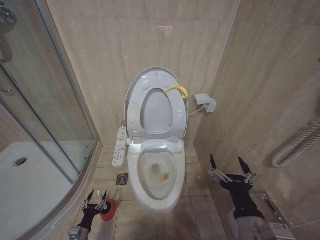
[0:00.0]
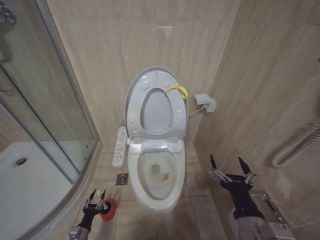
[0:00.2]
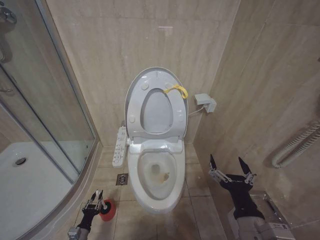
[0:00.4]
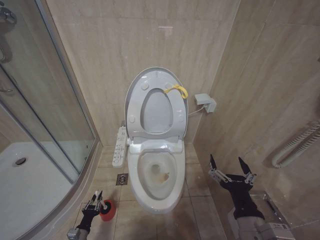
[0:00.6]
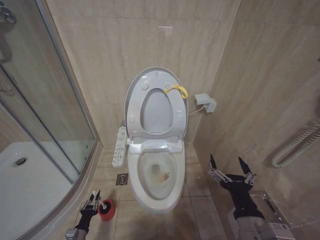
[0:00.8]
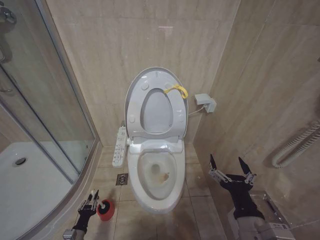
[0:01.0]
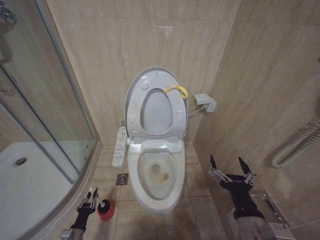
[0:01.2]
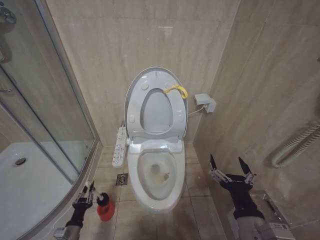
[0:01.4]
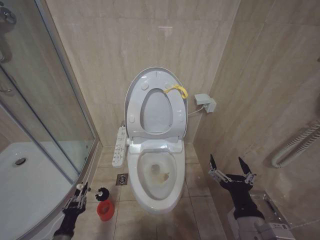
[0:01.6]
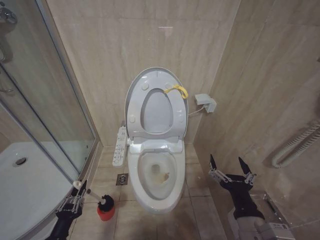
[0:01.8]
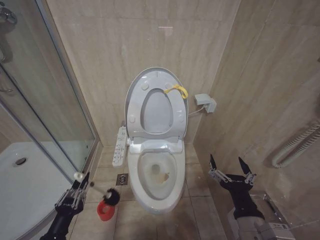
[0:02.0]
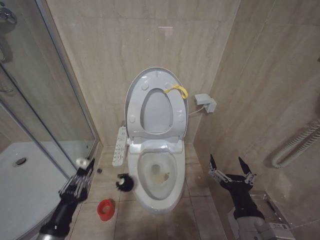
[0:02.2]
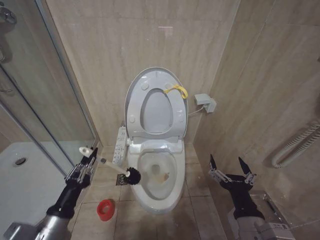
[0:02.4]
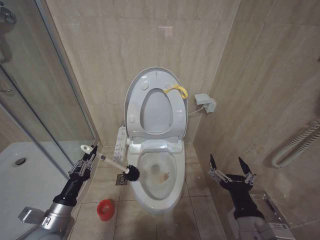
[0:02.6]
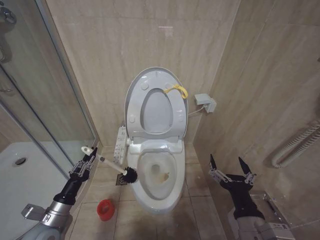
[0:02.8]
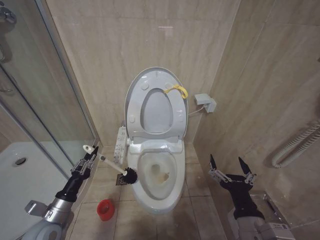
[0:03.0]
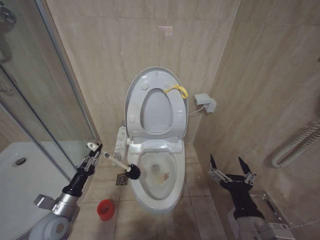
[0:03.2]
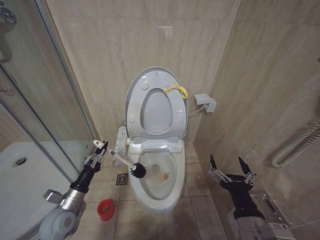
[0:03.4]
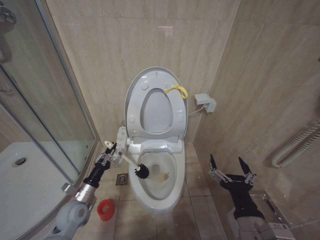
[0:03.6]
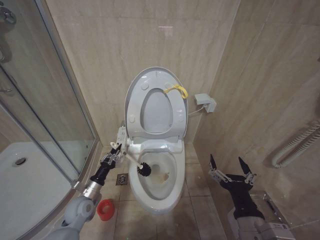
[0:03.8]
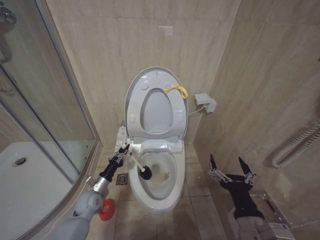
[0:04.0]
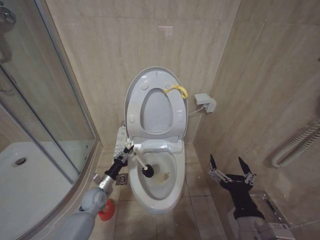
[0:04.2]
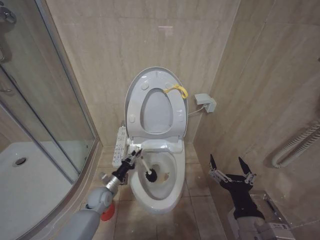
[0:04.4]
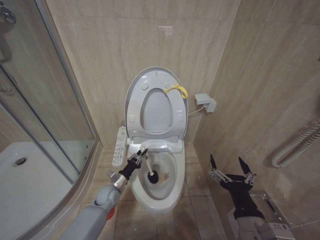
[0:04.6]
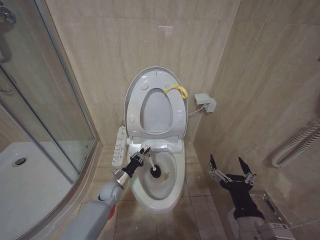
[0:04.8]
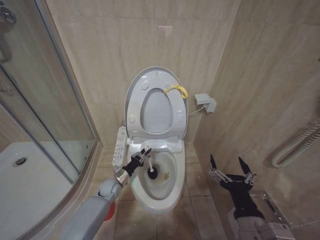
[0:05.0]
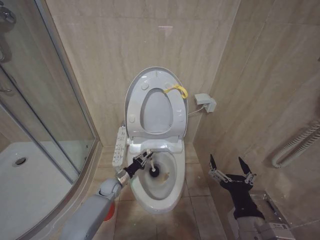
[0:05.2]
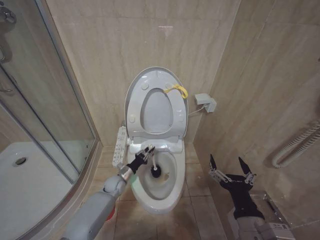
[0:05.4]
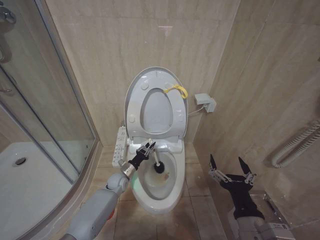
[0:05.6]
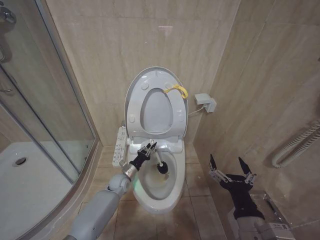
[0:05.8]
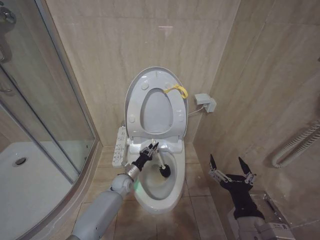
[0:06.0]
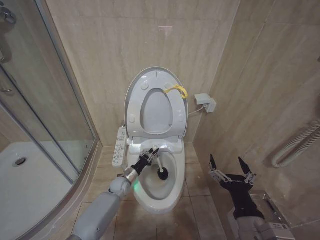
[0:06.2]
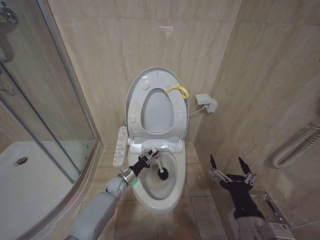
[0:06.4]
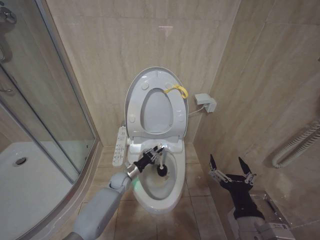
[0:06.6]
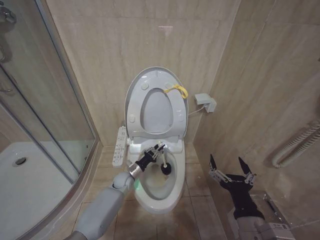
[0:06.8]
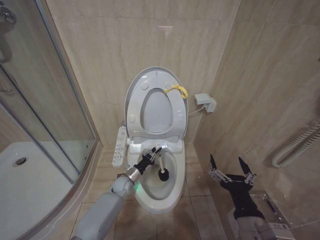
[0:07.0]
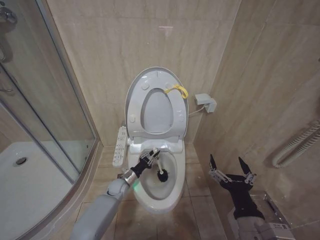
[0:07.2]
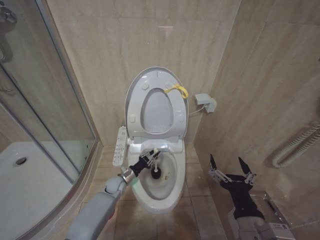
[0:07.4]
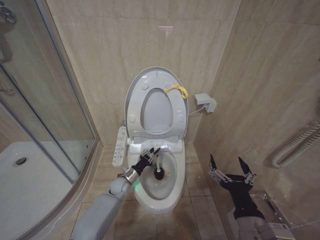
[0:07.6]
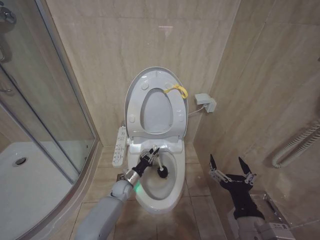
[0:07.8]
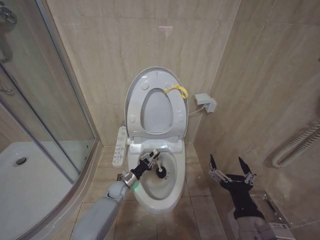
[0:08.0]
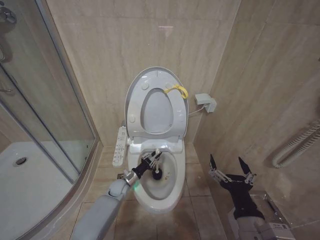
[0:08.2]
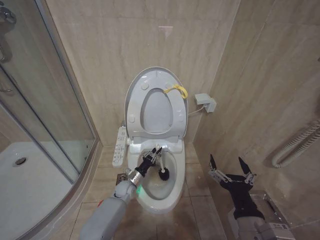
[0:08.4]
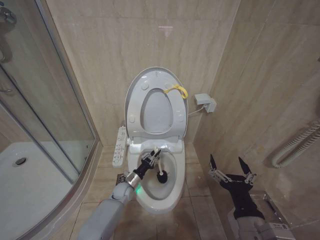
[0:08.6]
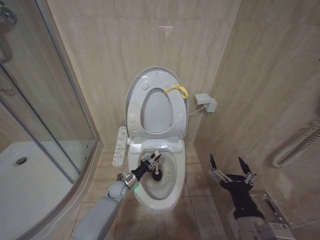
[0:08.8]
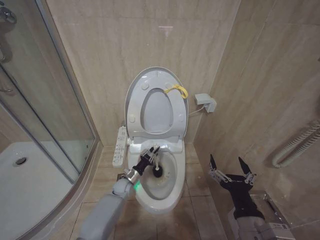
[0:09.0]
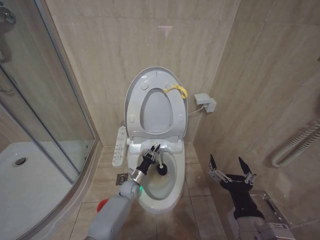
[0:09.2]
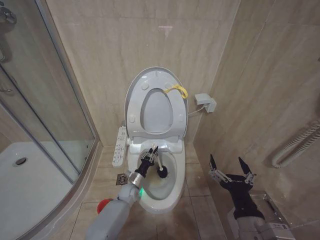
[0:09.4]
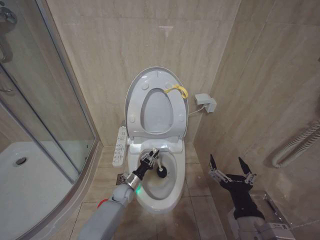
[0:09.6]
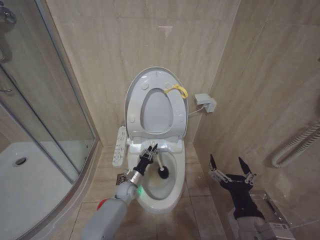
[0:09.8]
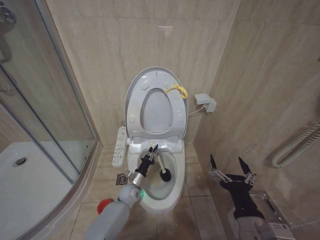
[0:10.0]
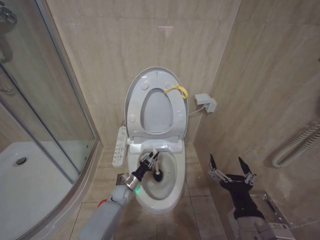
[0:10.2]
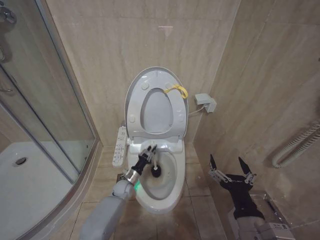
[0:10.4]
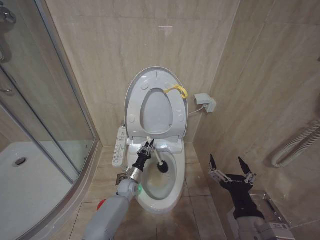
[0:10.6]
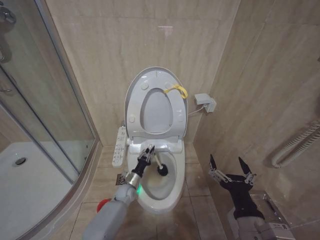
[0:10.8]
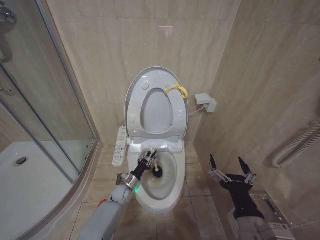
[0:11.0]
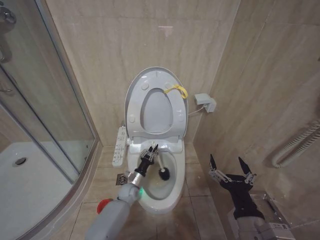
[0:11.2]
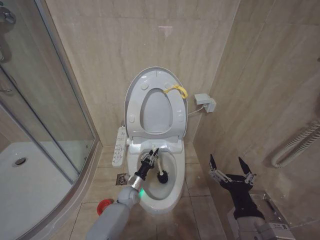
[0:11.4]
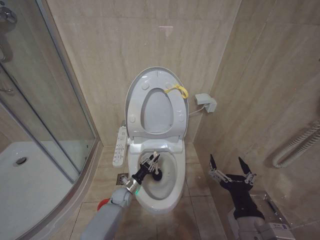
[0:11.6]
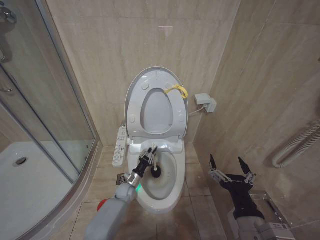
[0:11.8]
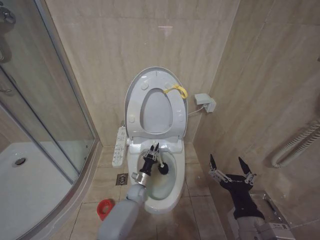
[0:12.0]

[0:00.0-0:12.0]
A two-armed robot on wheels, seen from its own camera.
Task of the whole recording: Open the toilet lid, clean the toilet bowl with a toilet brush, close the toilet lid, and flush.
0:00.0 to 0:01.6: The left gripper shifts some 10 cm upward, and closes up.
0:01.6 to 0:03.0: The left gripper shifts roughly 15 cm upward.
0:03.0 to 0:04.4: The left gripper travels forward, downward and to the right by roughly 20 cm.
0:04.4 to 0:06.0: The left gripper travels to the right and forward by roughly 10 cm.
0:06.0 to 0:07.6: The grippers make only small movements.
0:10.4 to 0:12.0: The left gripper swings left and right, roughly 5 cm each way, with 2 reversals.

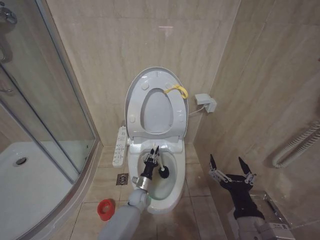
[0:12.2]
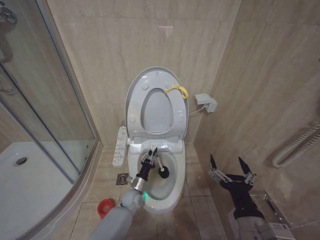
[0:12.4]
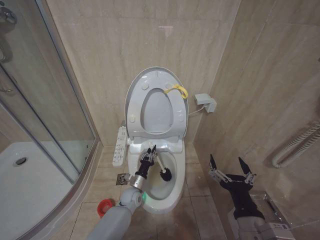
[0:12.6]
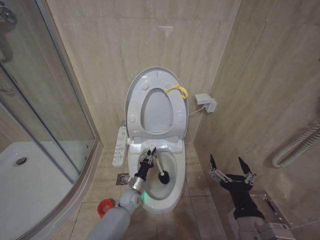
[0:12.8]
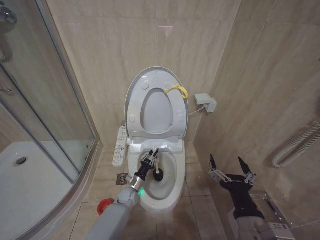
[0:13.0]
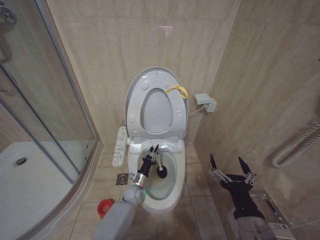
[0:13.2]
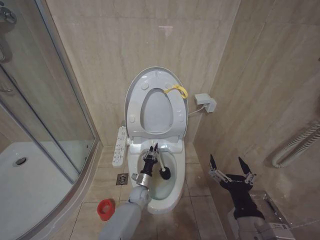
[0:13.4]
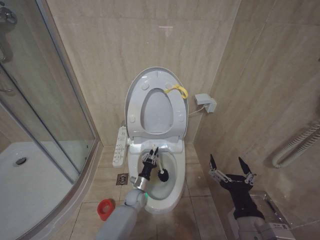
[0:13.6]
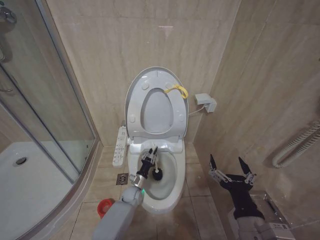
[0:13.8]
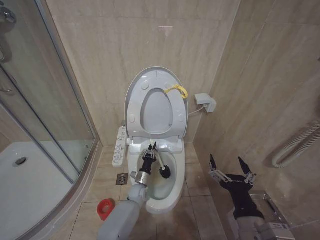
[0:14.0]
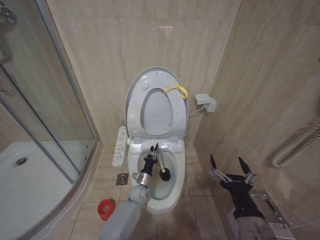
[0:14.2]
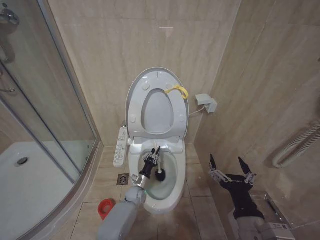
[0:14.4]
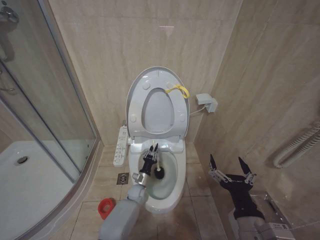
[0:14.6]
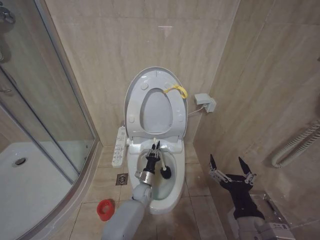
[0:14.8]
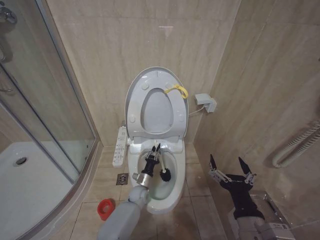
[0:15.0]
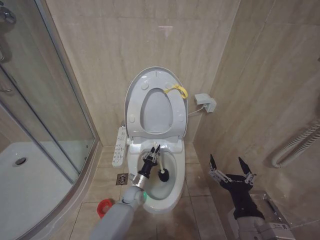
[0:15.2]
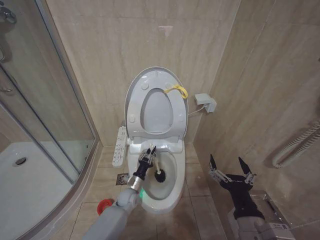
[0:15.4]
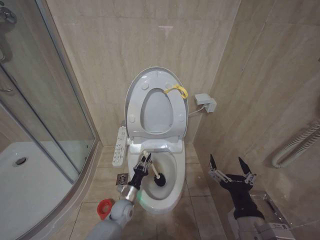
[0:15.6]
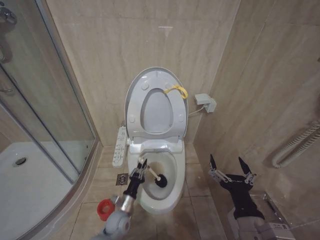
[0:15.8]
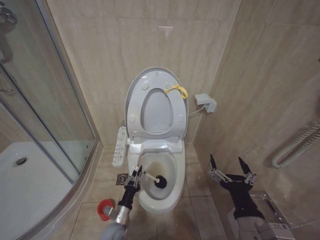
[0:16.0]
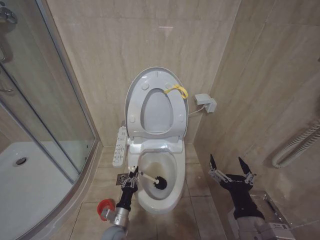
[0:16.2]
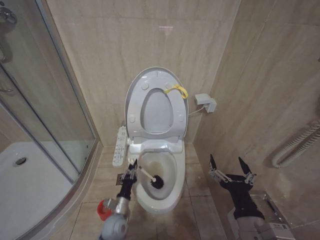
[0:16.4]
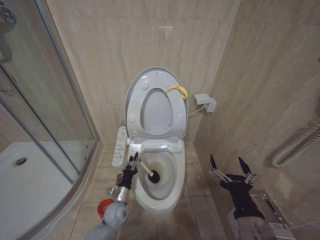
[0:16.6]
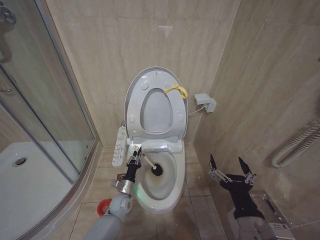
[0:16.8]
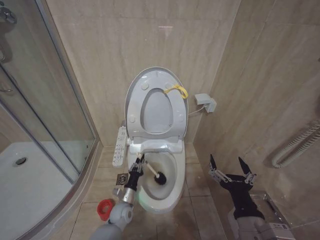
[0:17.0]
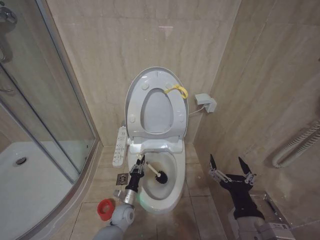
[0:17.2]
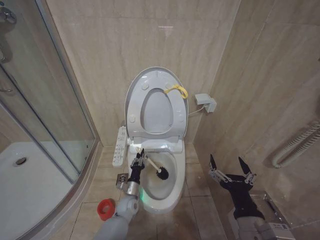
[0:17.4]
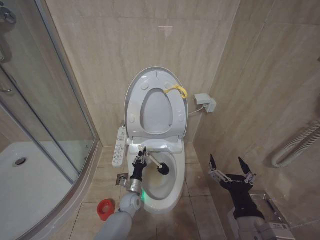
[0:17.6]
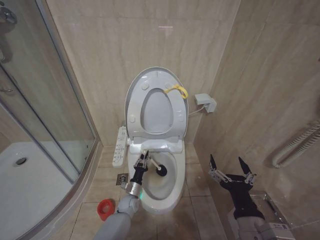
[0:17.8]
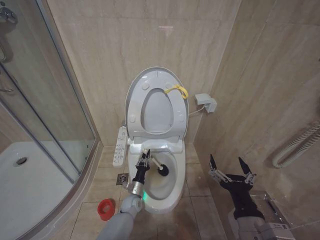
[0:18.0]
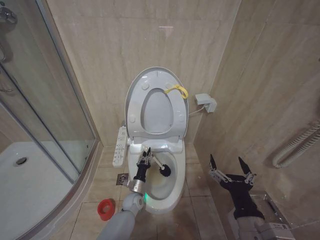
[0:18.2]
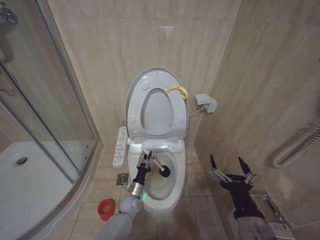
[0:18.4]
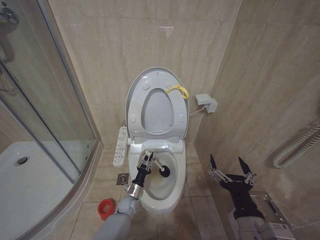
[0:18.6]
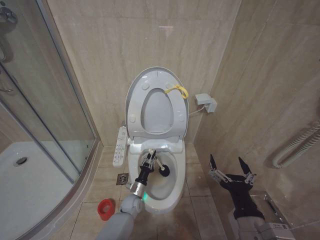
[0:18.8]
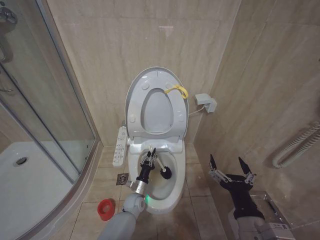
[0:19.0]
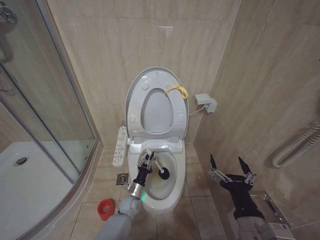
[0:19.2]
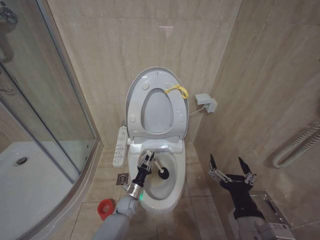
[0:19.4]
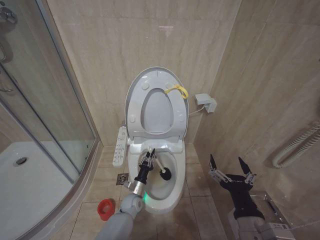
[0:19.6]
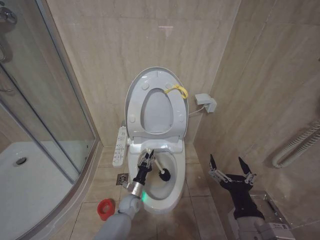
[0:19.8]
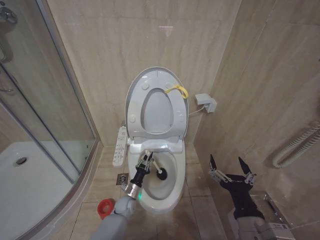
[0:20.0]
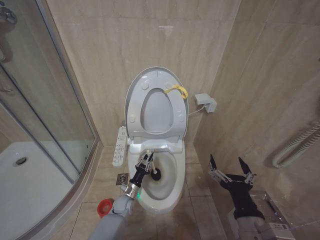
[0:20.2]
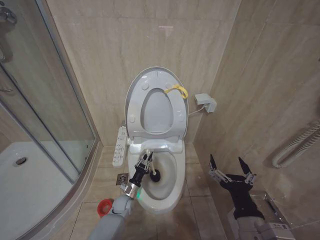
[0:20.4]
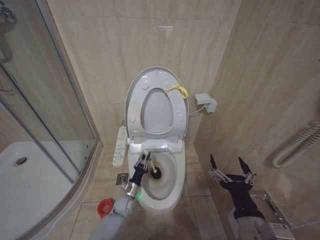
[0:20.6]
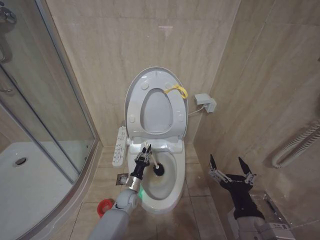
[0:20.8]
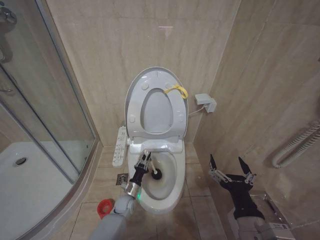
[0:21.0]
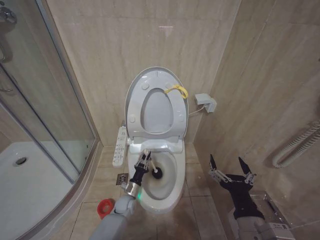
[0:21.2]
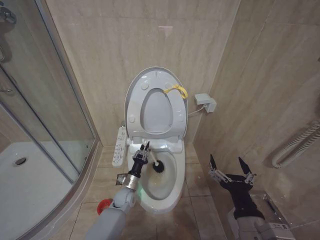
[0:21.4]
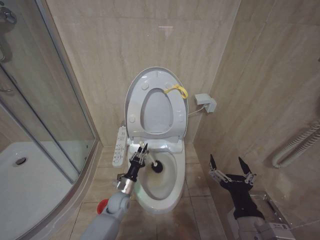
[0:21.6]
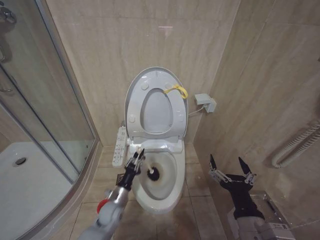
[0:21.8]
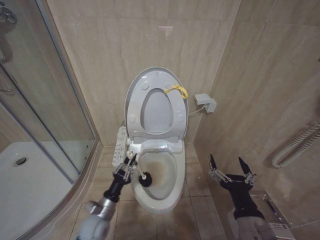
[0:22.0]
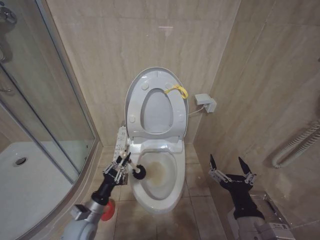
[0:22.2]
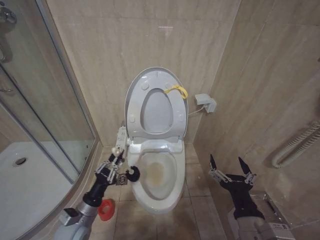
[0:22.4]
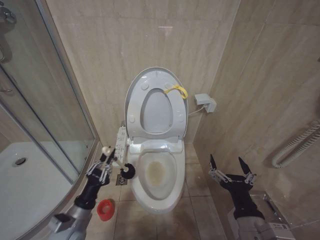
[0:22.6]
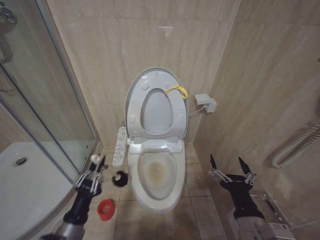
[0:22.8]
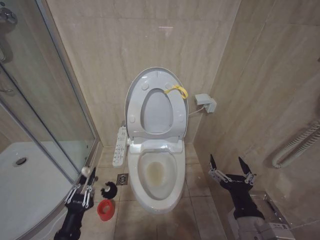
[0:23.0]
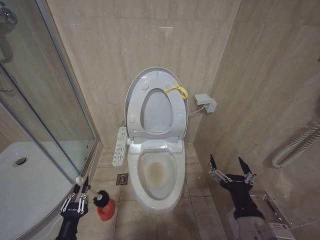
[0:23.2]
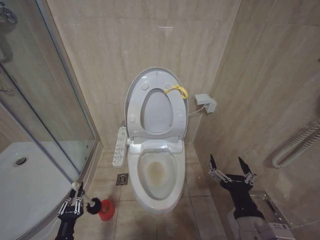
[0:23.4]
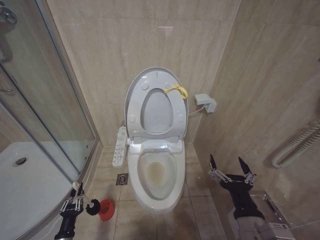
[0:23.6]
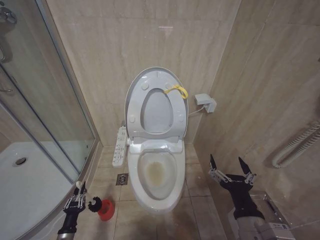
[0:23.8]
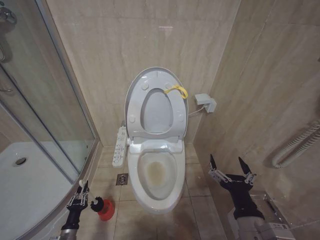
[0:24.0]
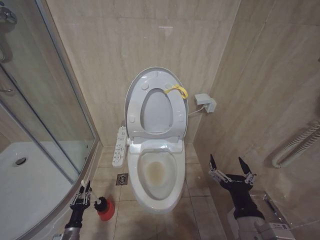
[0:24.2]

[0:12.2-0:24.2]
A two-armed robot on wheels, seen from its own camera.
Task of the whole recording: Open the toilet lid, clean the toilet bowl with a toilet brush, close the toilet lid, and flush.
0:12.2 to 0:13.8: The grippers move only a little.
0:15.2 to 0:16.6: The left gripper is displaced backward and to the left by about 10 cm.
0:16.6 to 0:18.2: The left gripper goes roughly 10 cm to the right and forward.
0:19.8 to 0:21.2: The grippers move only a little.
0:21.2 to 0:22.6: The left gripper moves upward, backward and to the left, about 25 cm.
0:22.6 to 0:24.2: The left gripper is displaced downward and to the left by some 25 cm.
